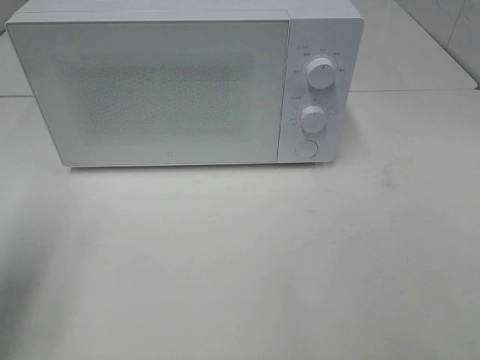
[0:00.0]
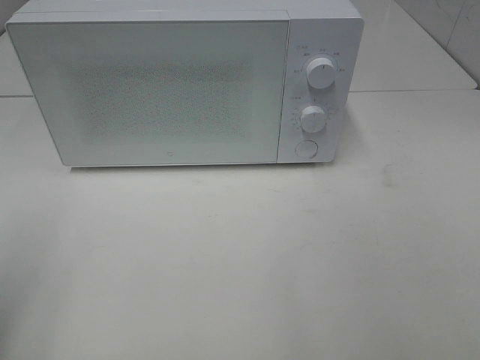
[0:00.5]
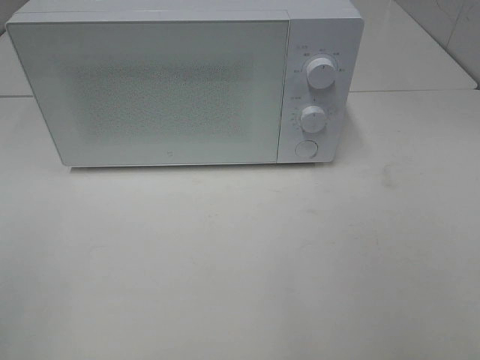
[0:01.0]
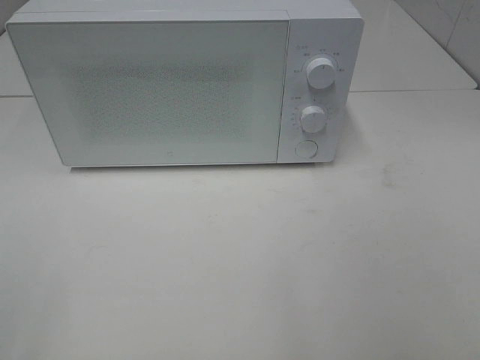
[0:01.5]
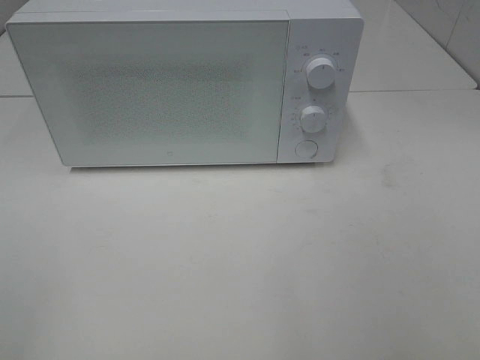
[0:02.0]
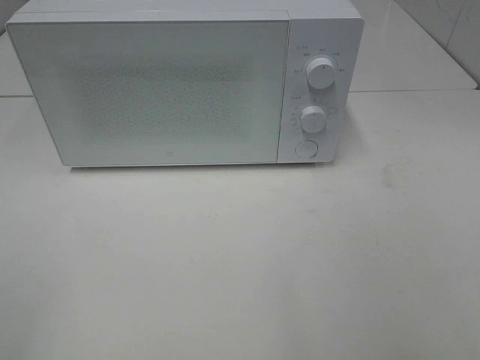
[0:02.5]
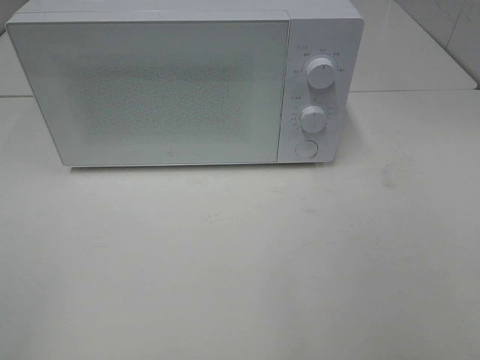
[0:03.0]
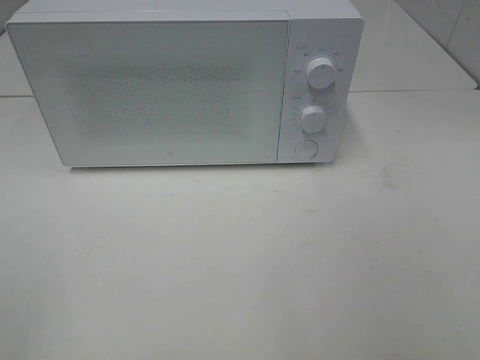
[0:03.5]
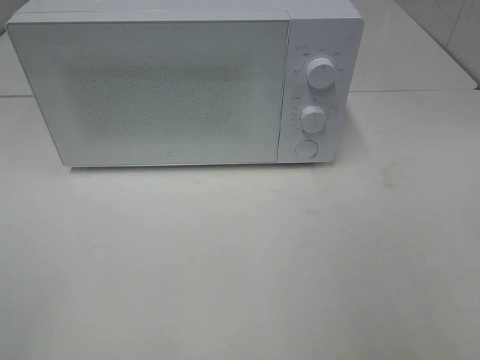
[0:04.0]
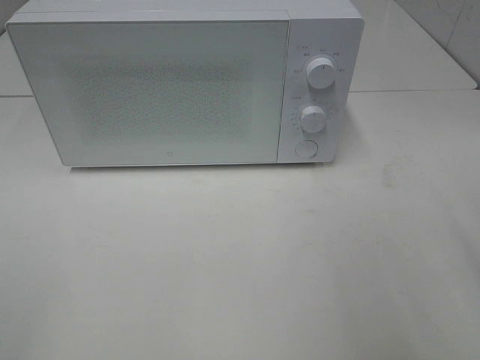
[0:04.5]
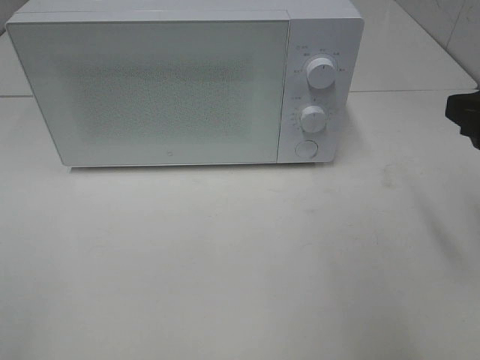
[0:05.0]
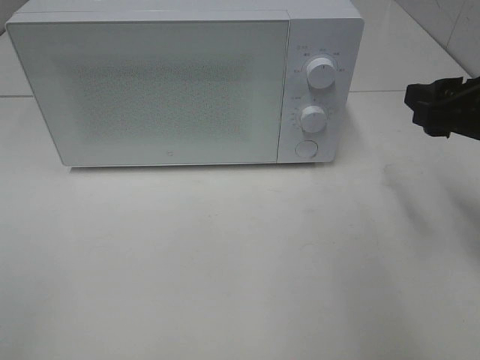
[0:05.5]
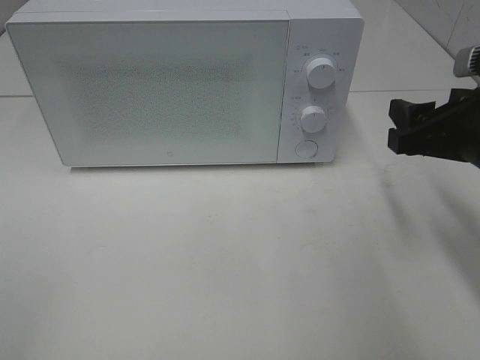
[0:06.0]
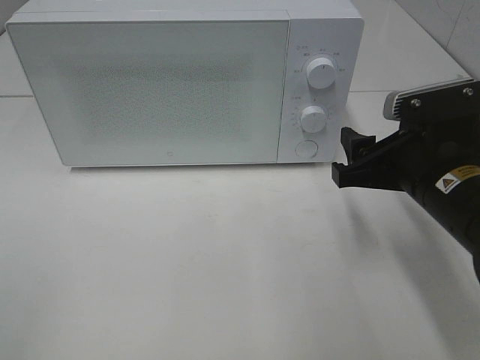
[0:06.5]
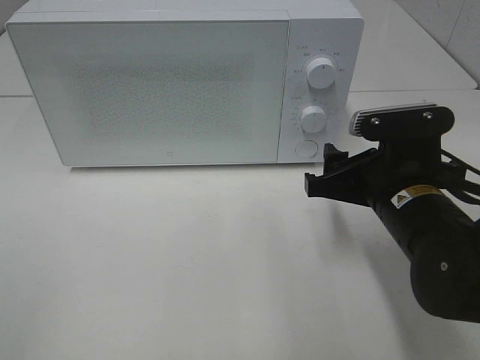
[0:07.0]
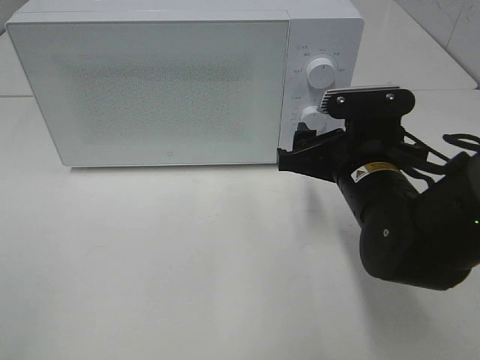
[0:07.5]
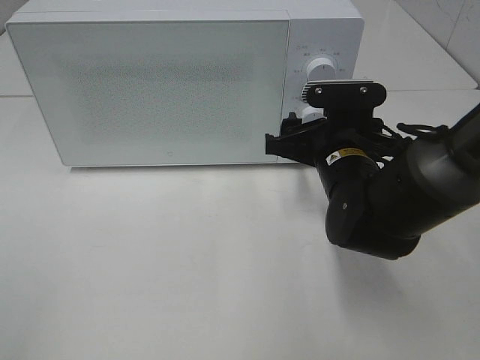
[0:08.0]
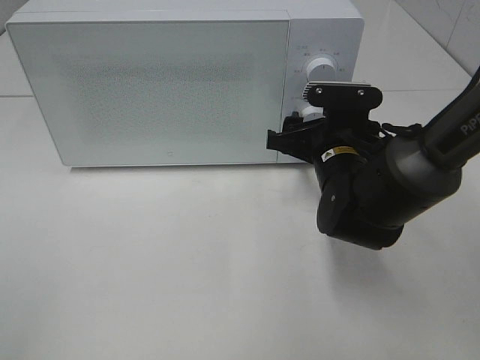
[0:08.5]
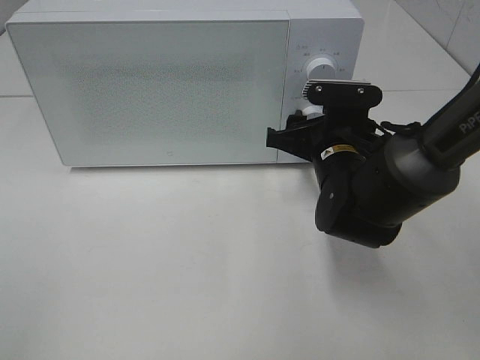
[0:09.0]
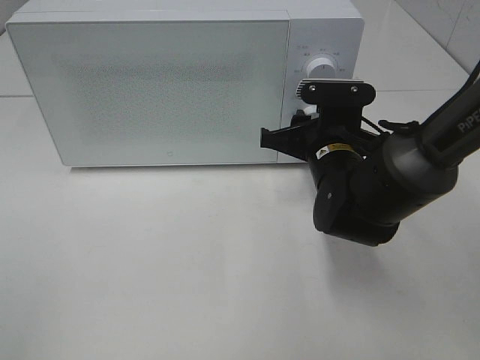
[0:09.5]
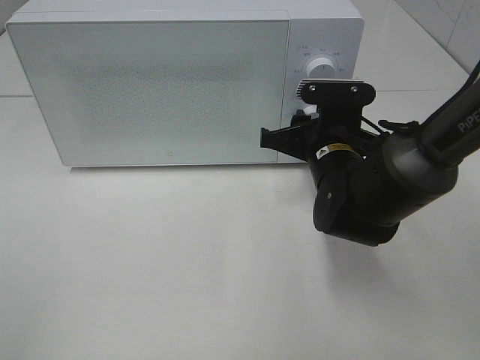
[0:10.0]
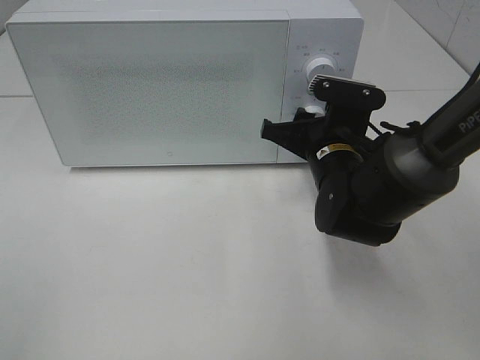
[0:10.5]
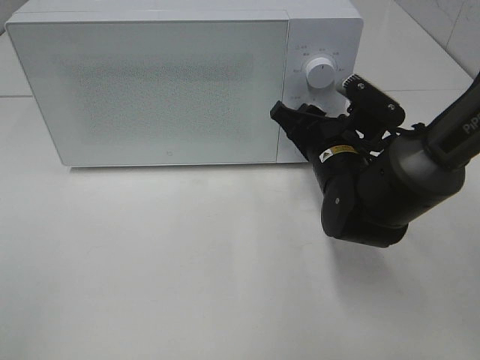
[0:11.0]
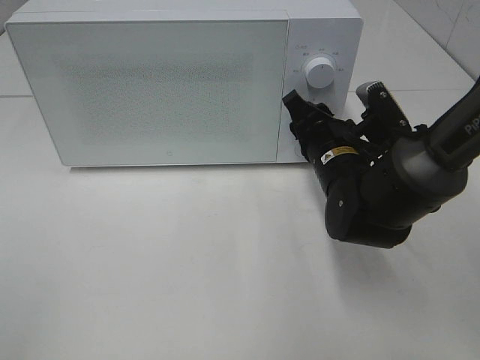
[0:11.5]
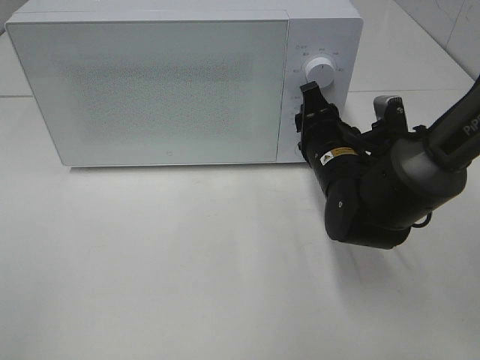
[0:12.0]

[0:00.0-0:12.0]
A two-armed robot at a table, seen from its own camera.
Task of the whole recording: Heat the burger.
0:00.0 to 0:02.0: The left gripper heads backward, covering roughly 15 cm.
0:04.0 to 0:06.0: The right gripper shifts approximately 20 cm forward and downward.
0:06.0 to 0:08.0: The right gripper moves to the left, downward and forward, some 15 cm.
0:08.0 to 0:10.0: The right gripper closes its fingers.

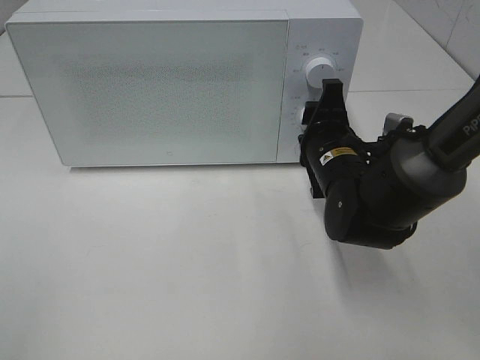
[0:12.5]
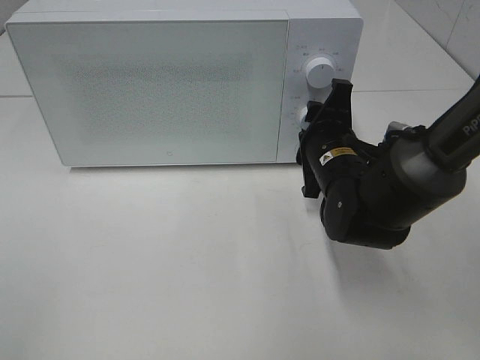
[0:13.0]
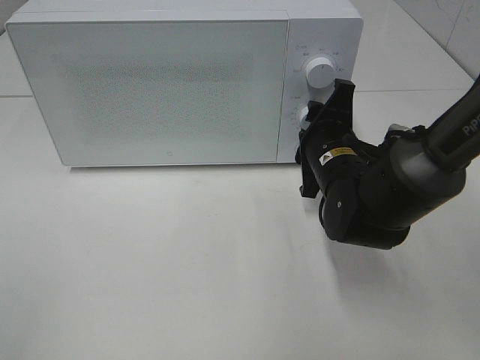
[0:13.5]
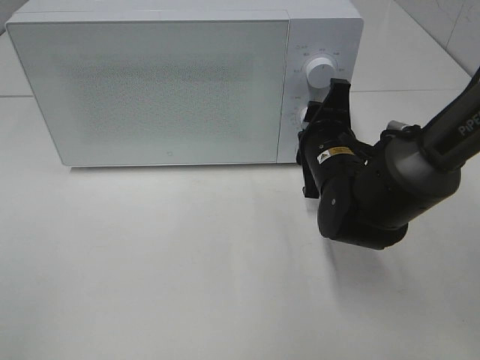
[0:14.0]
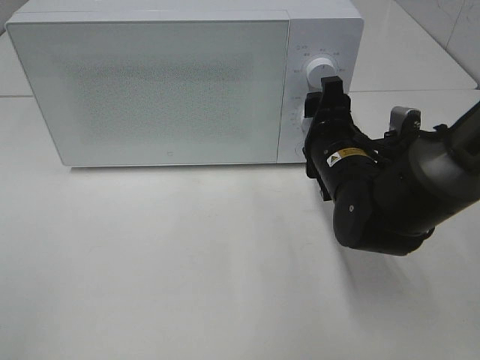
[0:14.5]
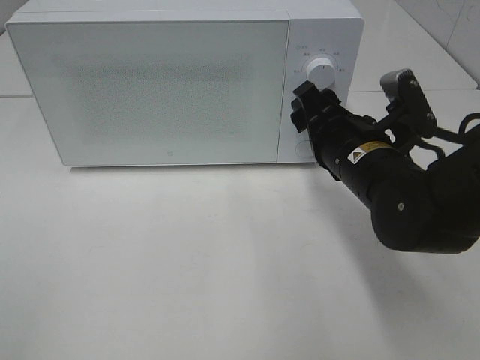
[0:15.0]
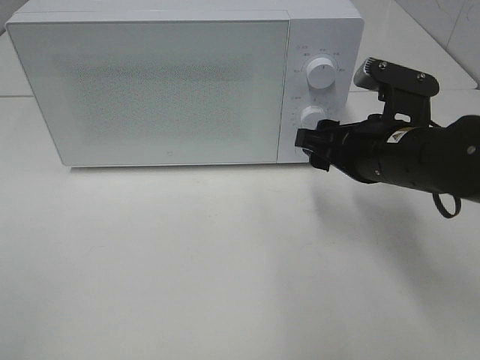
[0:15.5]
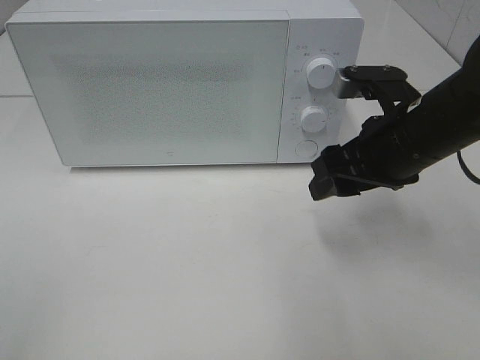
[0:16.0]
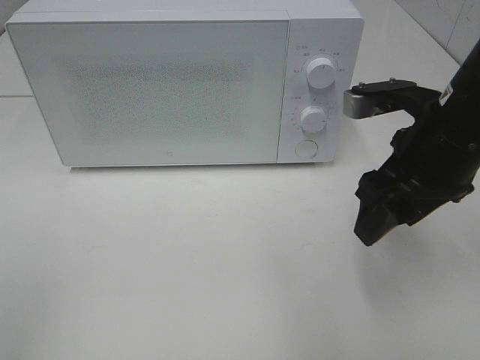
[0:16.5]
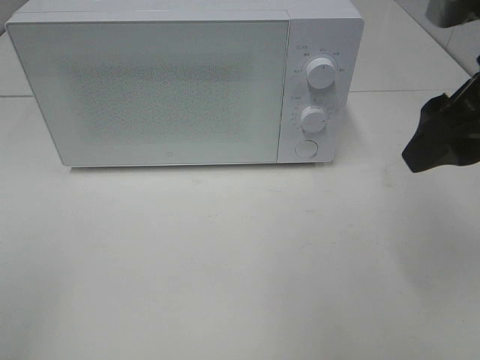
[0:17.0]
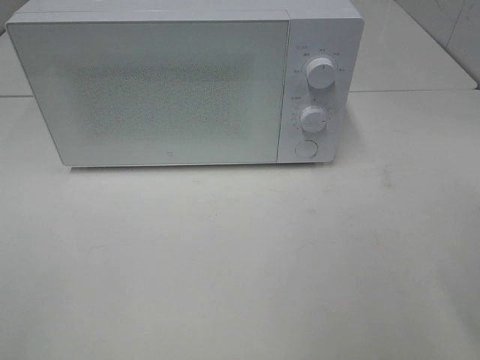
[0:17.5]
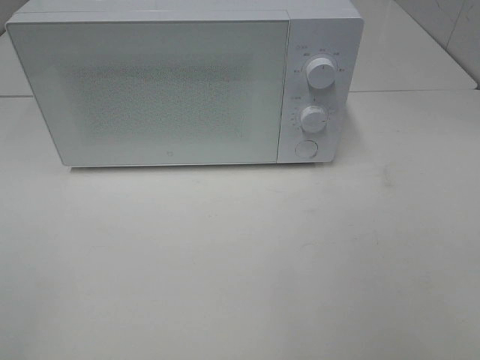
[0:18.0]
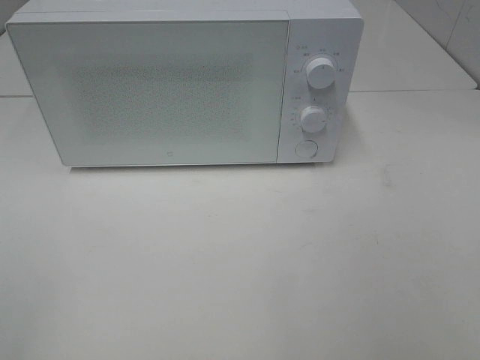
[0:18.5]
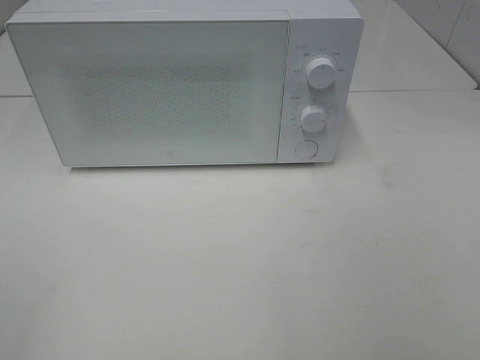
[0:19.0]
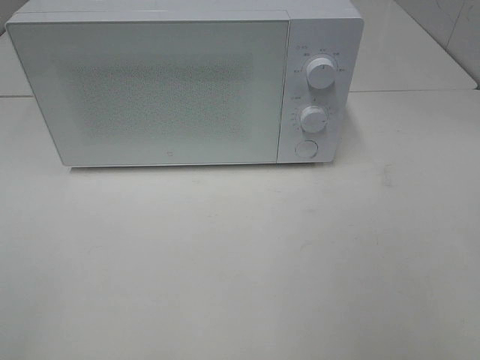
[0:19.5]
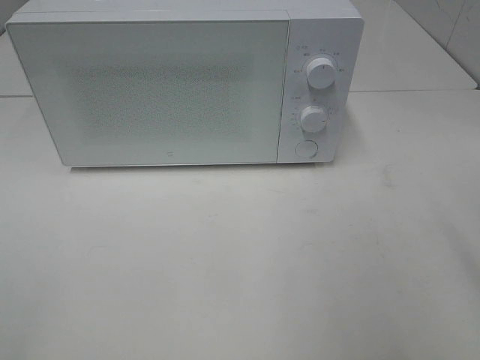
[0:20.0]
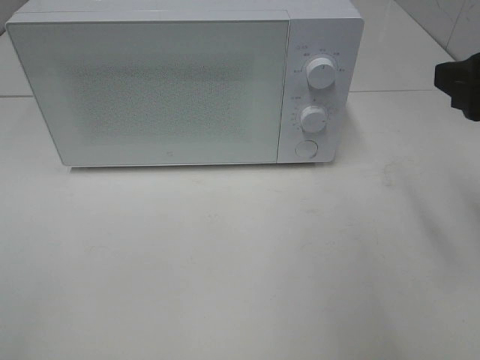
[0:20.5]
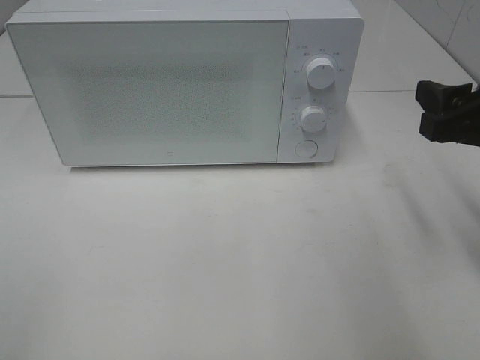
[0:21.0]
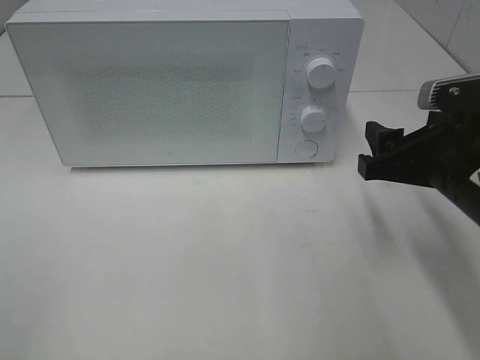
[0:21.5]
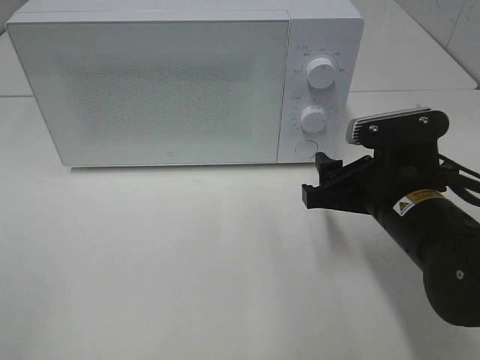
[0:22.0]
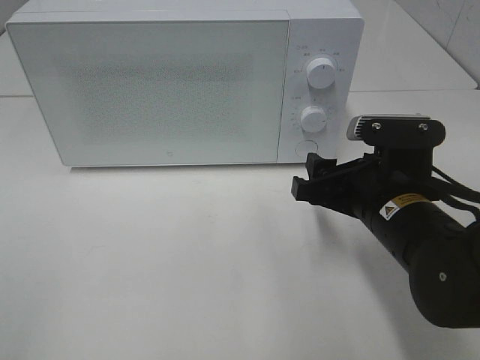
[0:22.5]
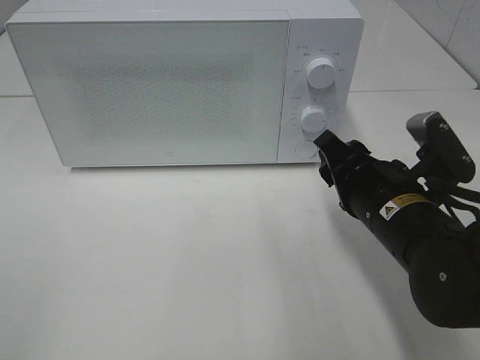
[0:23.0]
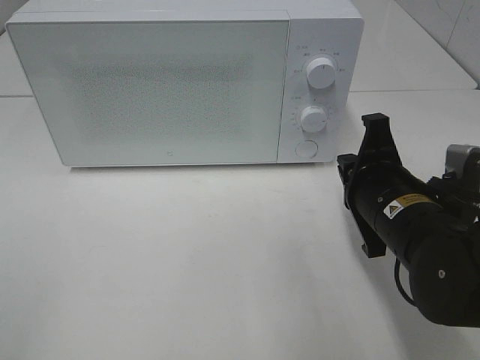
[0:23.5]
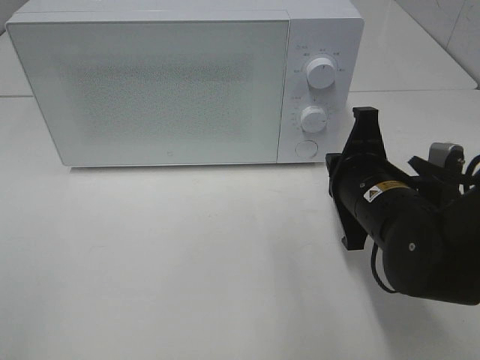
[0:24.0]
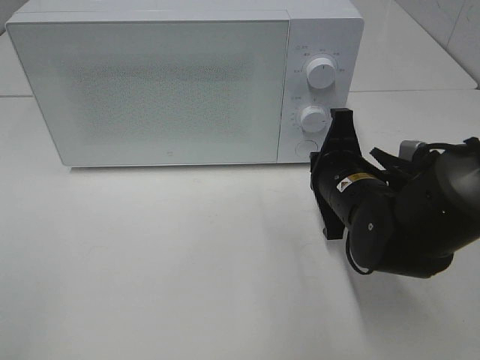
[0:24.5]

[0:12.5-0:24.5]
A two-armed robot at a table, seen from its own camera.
Task of the whole recording: Heat the burger.
Step, 0:12.5 to 0:14.5: Right hand: twist timer button.
0:12.5 to 0:14.5: The grippers make only small movements.
0:14.5 to 0:16.5: The right gripper shifts approximately 10 cm upward and backward.
0:16.5 to 0:18.5: The right gripper heads backward and to the right, covering about 25 cm.
0:18.5 to 0:20.5: The right gripper goes approximately 20 cm forward.
0:20.5 to 0:22.5: The right gripper heads downward and to the left, covering about 15 cm.
0:22.5 to 0:24.5: The right gripper heads forward, covering about 5 cm, and closes.

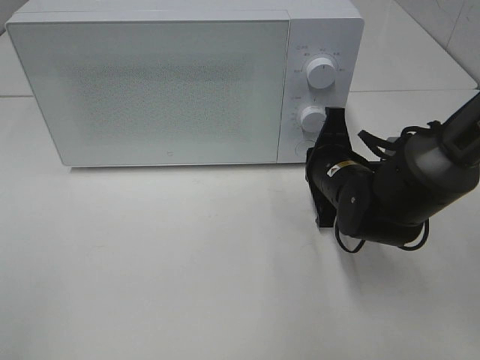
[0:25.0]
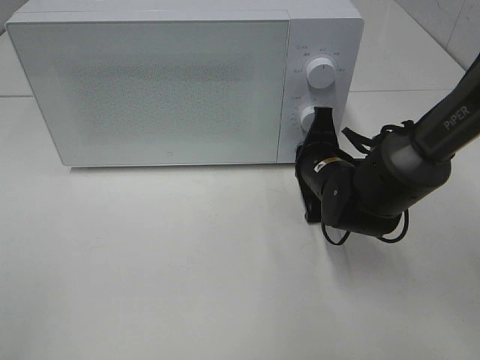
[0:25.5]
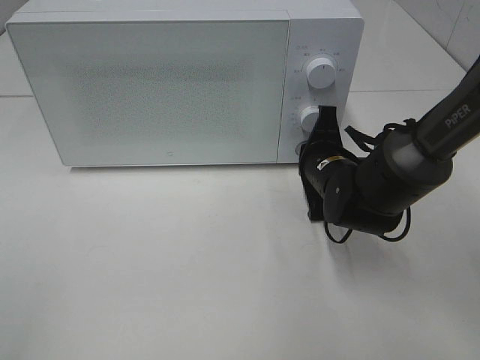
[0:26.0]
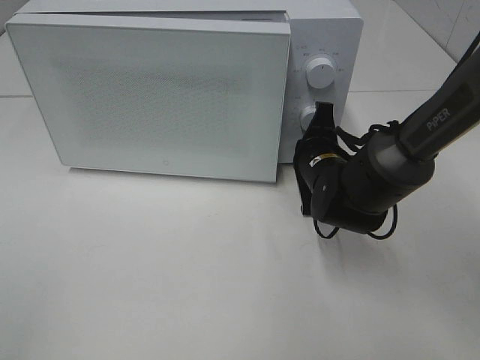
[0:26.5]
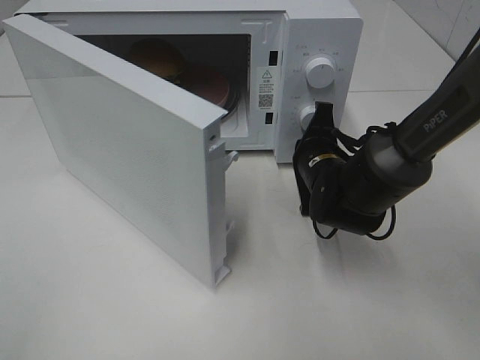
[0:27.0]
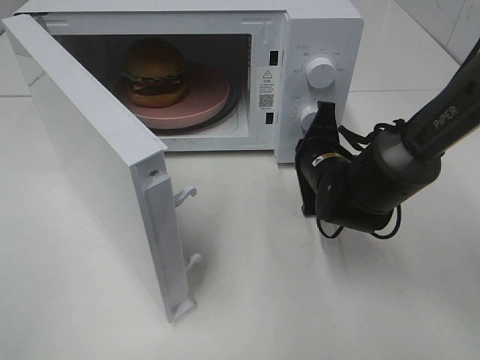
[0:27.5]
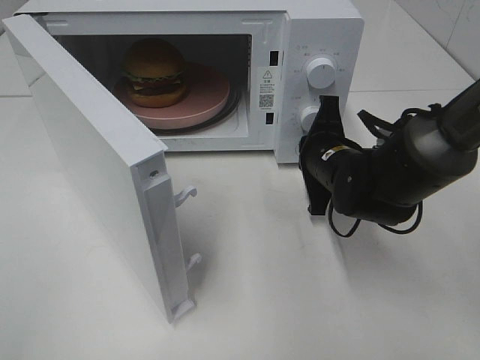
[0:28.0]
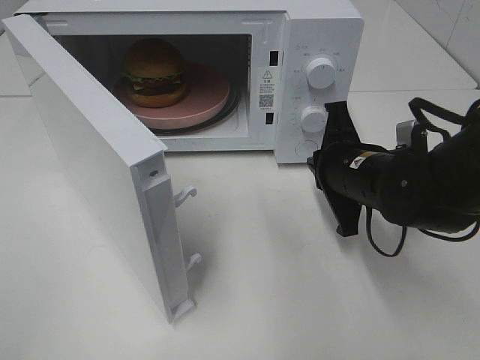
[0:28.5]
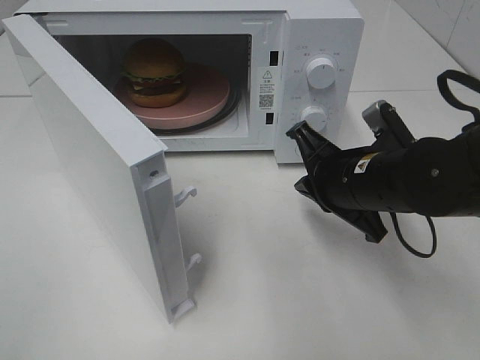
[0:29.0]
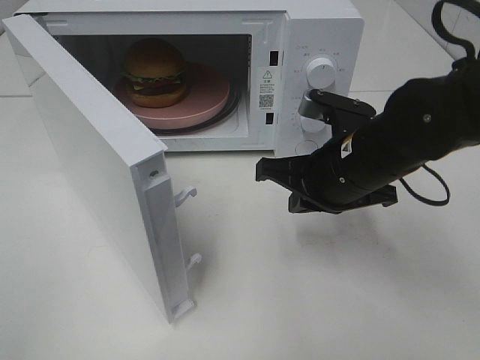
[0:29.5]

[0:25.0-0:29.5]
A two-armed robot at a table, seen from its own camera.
Task of the whole recording: Heat the burger.
Step, 0:25.0 to 0:28.5: Right hand: press the switch.
0:27.0 to 0:29.5: The right gripper is displaced upward and backward by some 10 cm.
